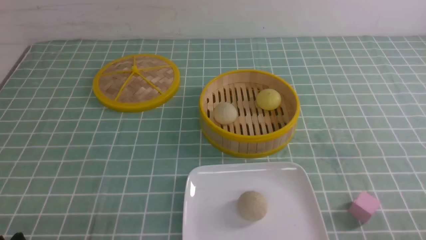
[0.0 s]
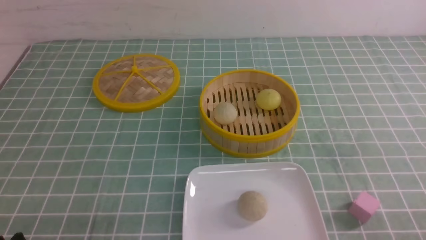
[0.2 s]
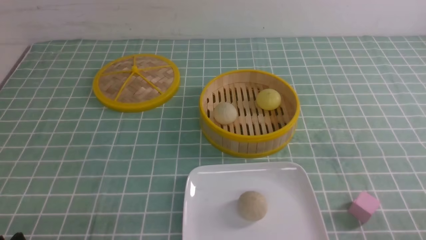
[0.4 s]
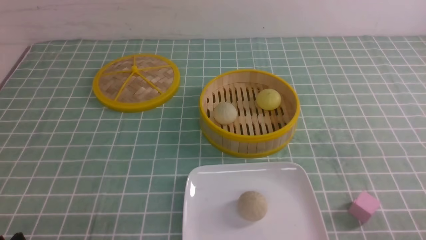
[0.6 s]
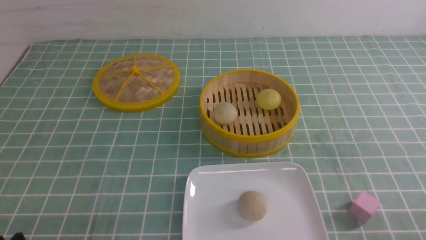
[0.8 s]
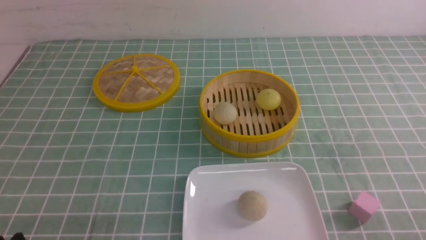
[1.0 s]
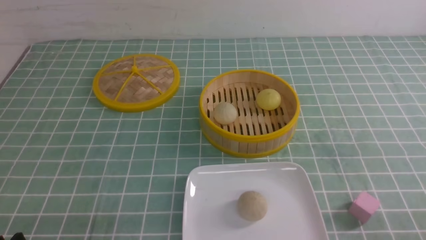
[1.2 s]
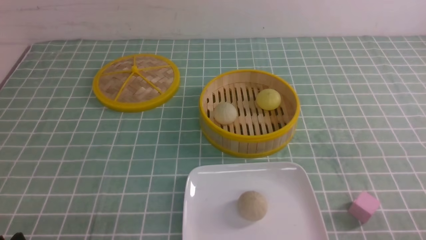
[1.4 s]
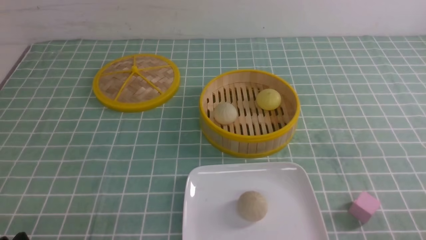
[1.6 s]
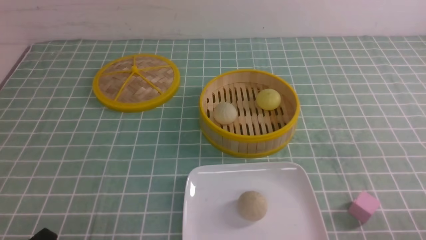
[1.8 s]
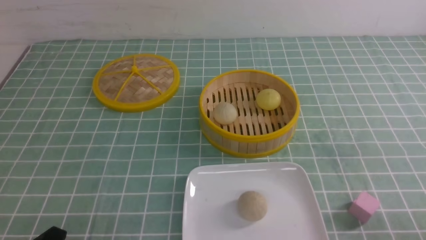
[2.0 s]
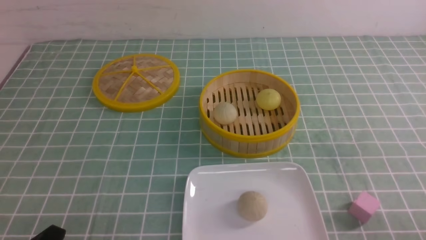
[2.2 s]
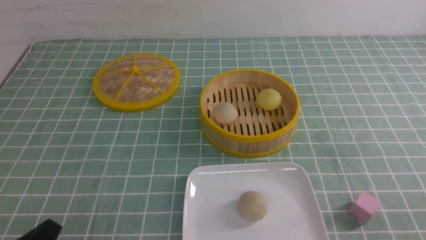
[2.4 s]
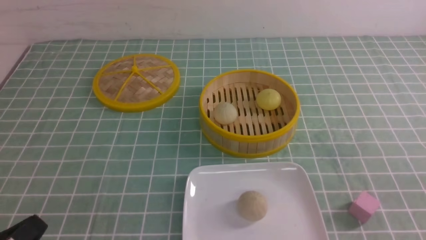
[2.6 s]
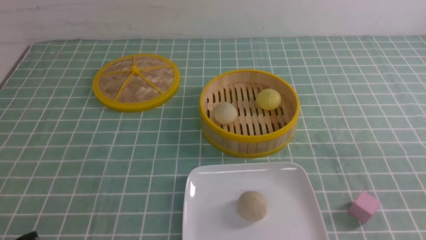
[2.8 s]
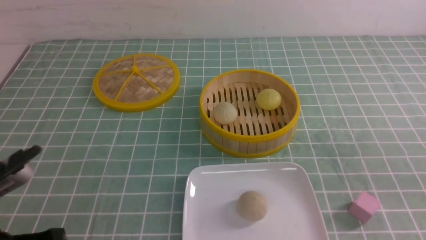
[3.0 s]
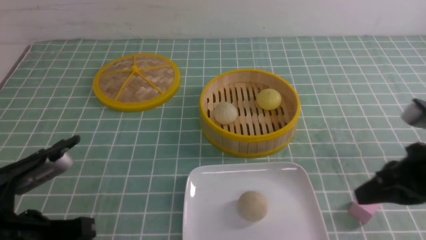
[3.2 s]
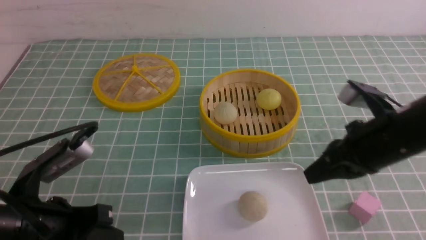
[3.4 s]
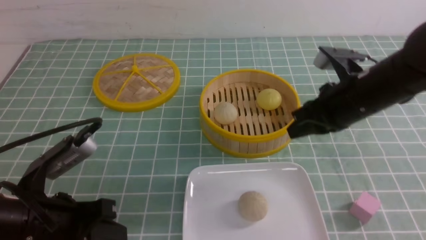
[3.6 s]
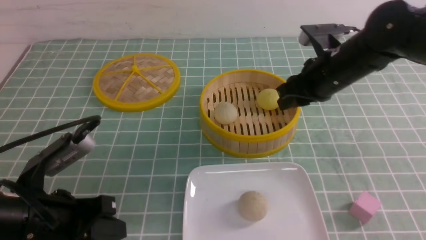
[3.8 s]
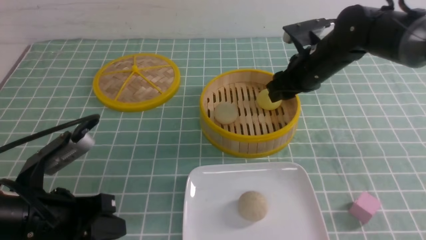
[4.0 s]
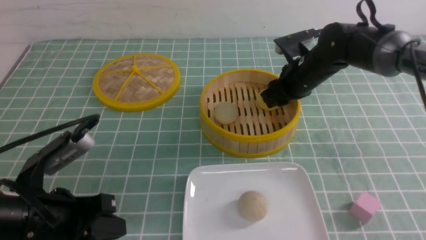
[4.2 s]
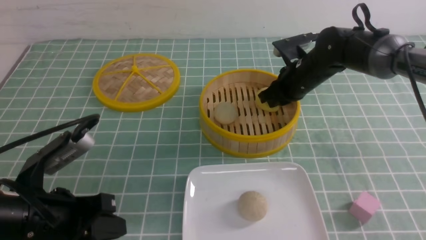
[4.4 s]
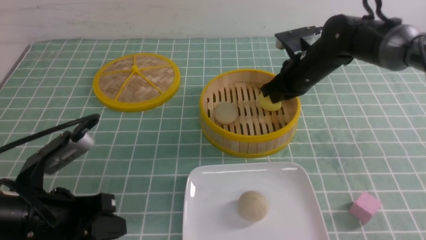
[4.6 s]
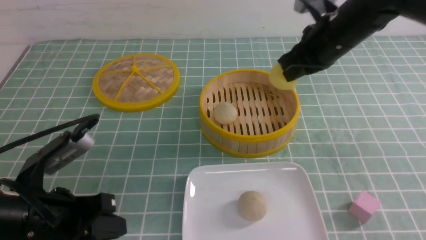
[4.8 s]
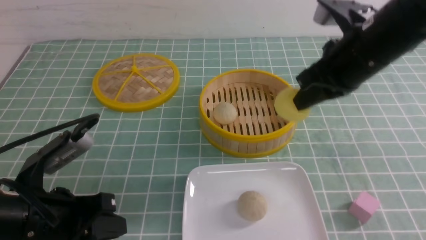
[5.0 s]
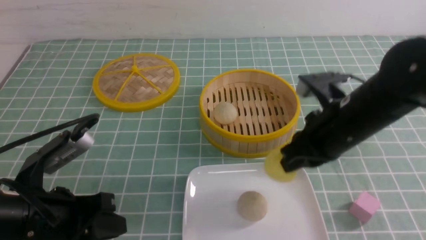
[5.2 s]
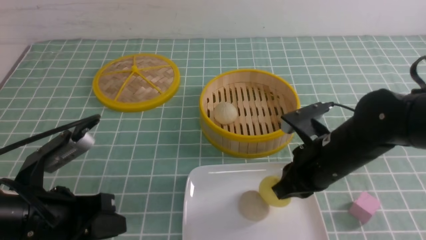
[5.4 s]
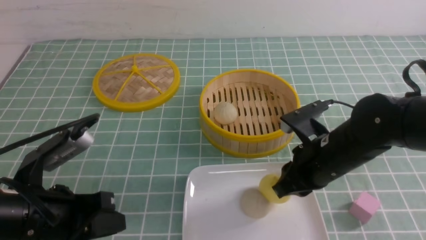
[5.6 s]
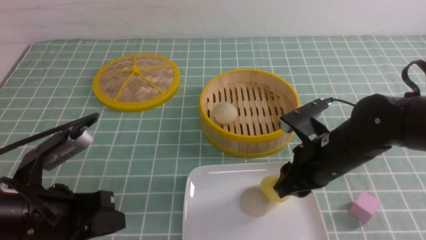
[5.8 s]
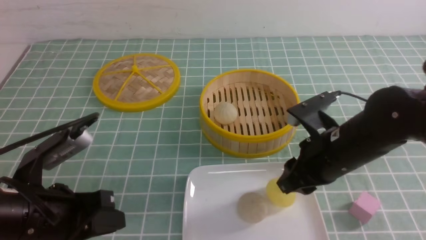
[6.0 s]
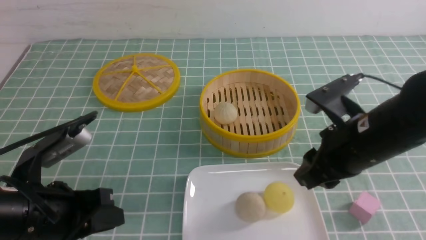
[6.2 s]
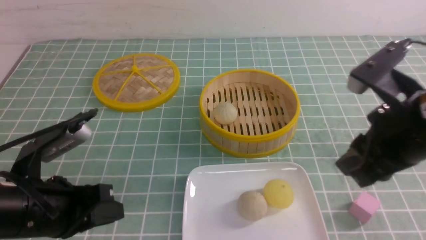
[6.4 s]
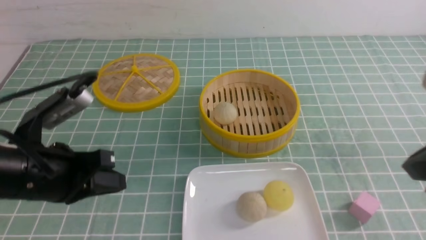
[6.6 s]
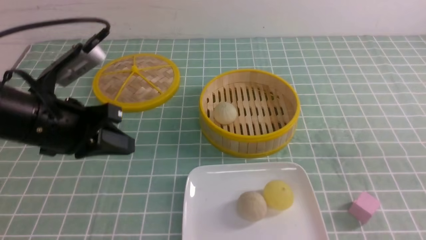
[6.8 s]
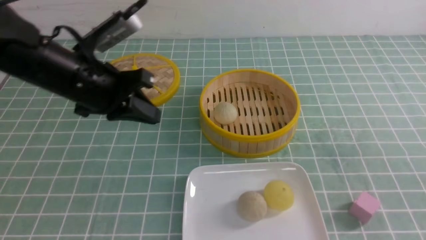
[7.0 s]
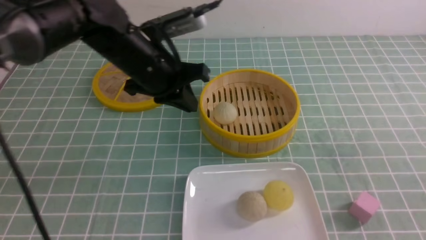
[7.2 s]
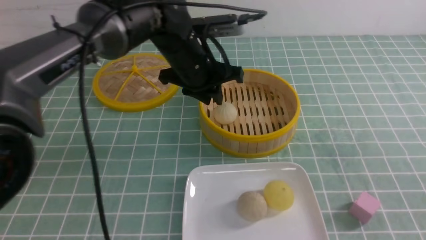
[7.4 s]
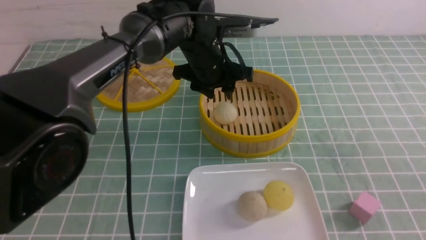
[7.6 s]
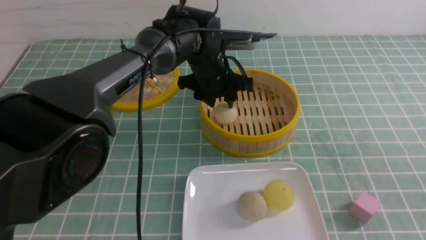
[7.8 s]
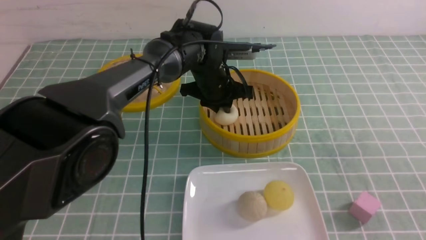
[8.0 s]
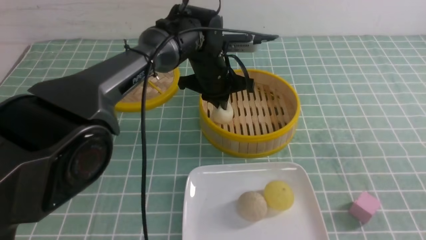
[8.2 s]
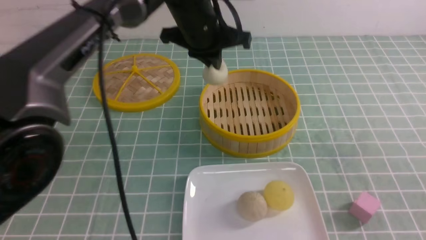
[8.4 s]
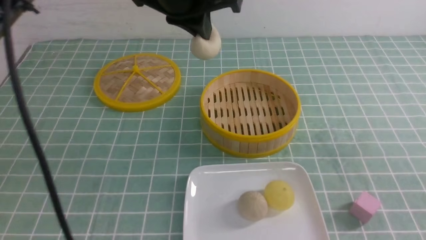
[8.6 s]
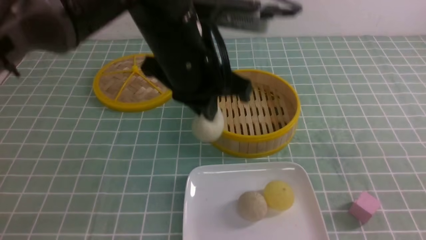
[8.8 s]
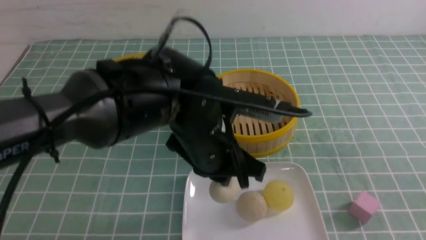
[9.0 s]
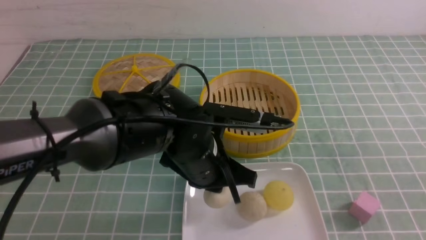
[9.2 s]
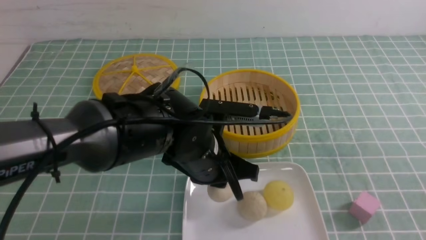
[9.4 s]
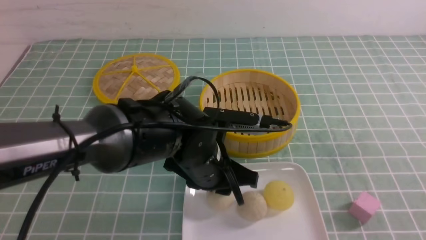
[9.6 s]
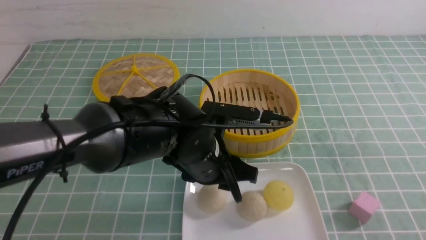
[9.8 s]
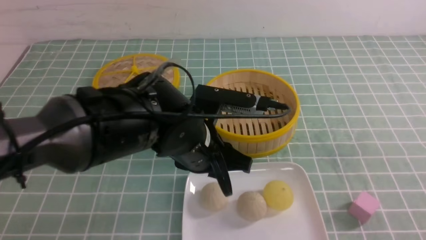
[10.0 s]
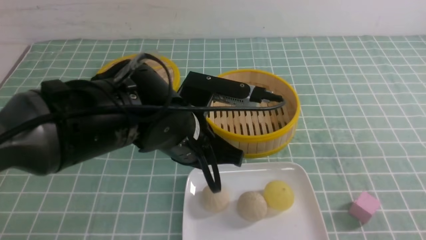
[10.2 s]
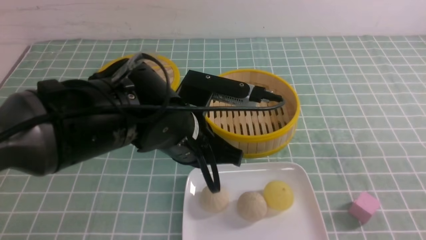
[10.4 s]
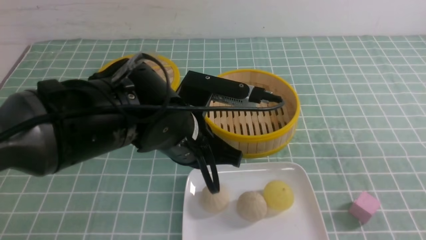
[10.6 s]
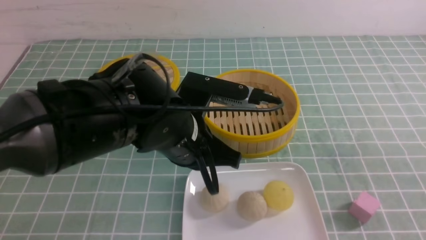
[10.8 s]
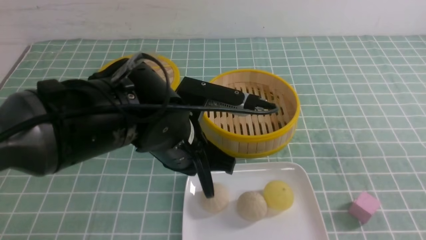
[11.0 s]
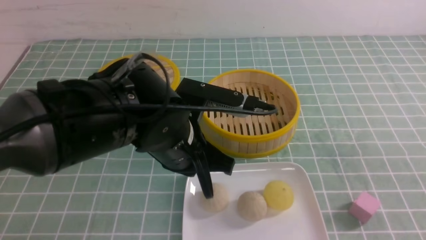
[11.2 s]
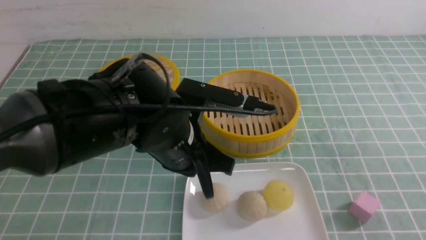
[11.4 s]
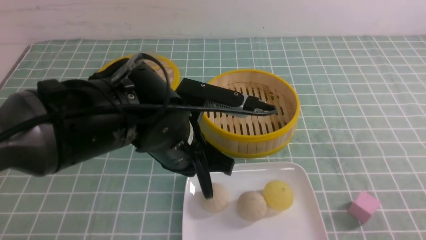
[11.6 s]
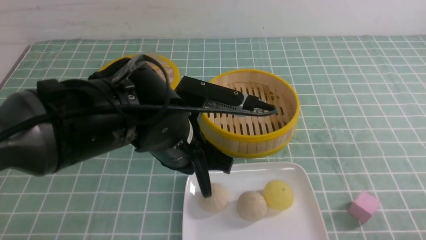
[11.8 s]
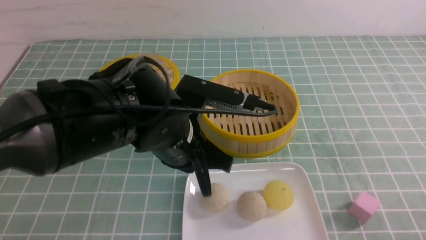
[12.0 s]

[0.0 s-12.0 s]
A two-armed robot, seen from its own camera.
Step, 0.0 to 4.6 s: use the right arm to grab the steamed stuffed bun that is closest to it.
Step, 4.8 to 5.6 s: use the right arm to put the steamed stuffed bun into the plate.
Step, 5.8 to 8.0 s: use the left arm to grab the steamed stuffed bun that is closest to it.
Step, 8.2 to 9.6 s: use the left arm to put the steamed stuffed bun into the plate.
1.6 to 3.0 s: The left gripper travels upward by roughly 10 cm, and closes.
3.0 to 4.4 s: The right gripper travels forward and to the left by some 30 cm, and opens its fingers. The left gripper heads forward, covering roughly 5 cm.
4.4 to 6.0 s: The right gripper moves backward, approximately 20 cm, and opens.
6.0 to 7.6 s: The left gripper goes about 35 cm forward and to the right, and opens. The right gripper travels backward, to the right and upward by roughly 25 cm, and closes.
7.6 to 9.0 s: The left gripper moves backward, approximately 15 cm, and closes.
9.0 to 10.4 s: The left gripper opens, then closes once more.
10.4 to 12.0 s: The right gripper travels downward by about 10 cm.

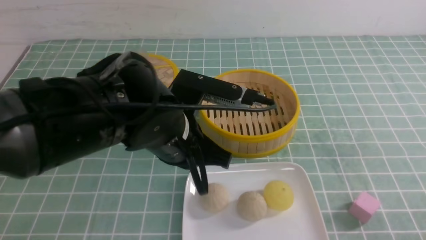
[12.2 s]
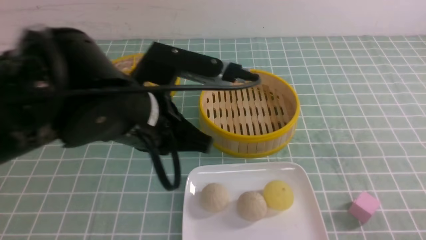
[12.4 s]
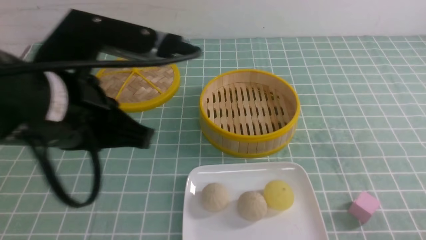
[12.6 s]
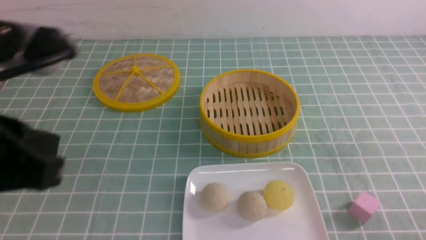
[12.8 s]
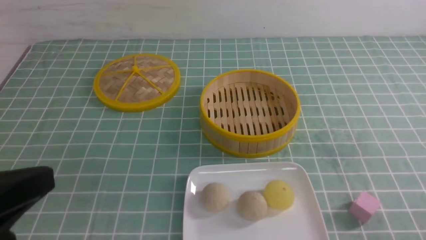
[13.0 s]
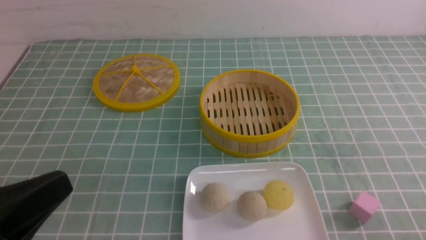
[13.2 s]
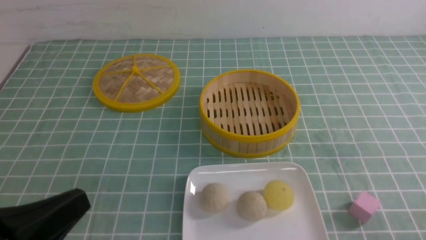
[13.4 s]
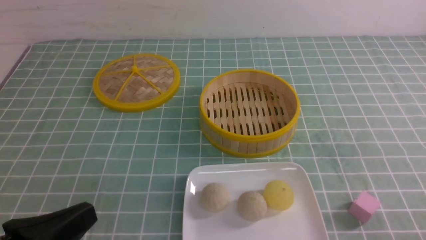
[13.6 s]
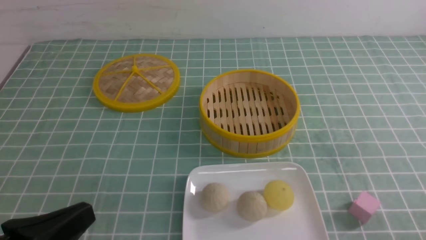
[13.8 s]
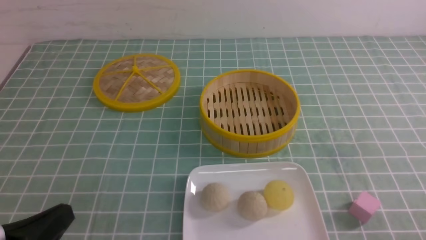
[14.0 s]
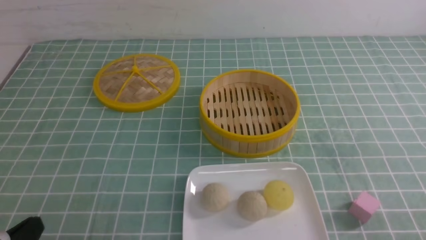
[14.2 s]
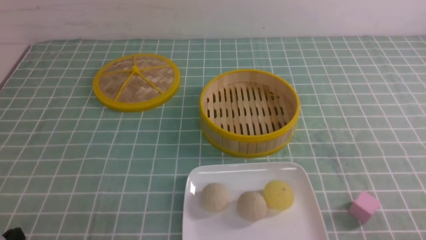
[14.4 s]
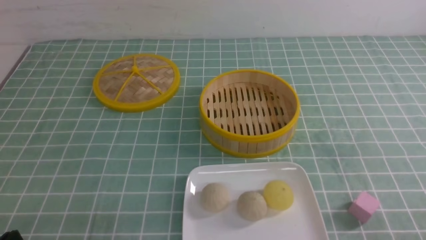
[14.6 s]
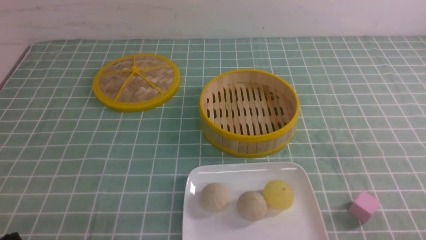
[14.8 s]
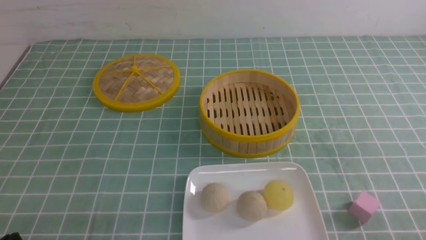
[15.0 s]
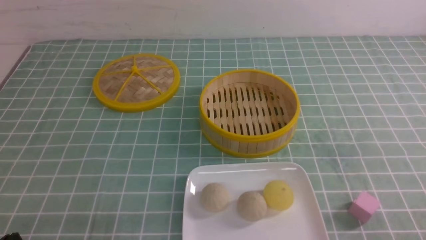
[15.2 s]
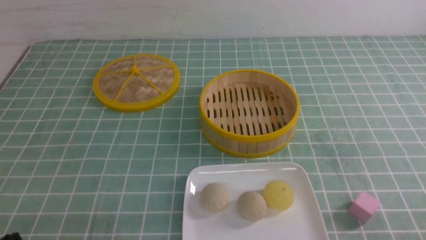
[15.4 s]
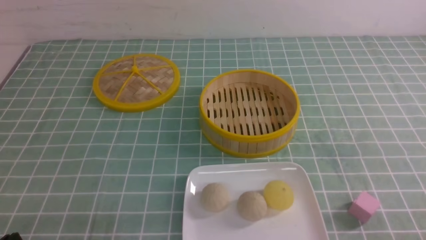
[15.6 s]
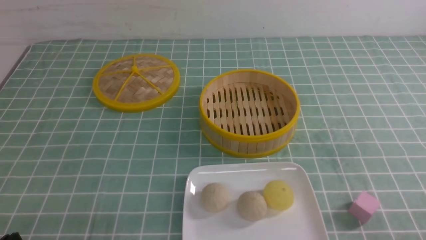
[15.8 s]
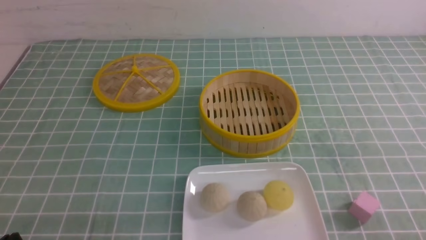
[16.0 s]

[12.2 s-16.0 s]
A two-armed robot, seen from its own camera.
12.2 to 13.4 s: The left gripper heads backward and to the left, covering roughly 25 cm.
13.4 to 14.8 s: The left gripper heads downward, covering some 10 cm.
14.8 to 16.0 s: Both grippers stay put.

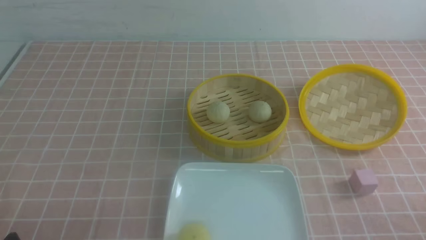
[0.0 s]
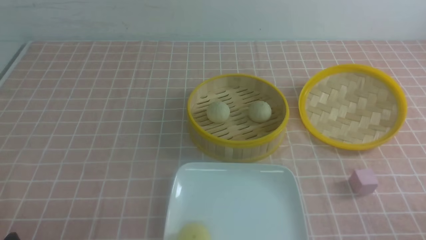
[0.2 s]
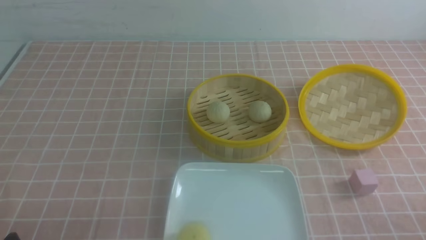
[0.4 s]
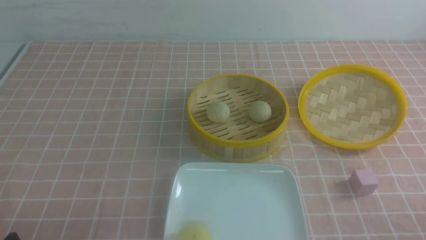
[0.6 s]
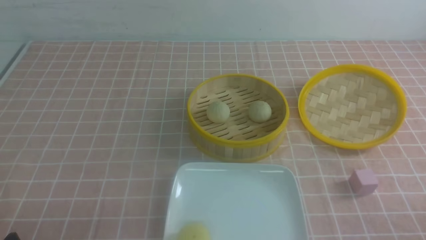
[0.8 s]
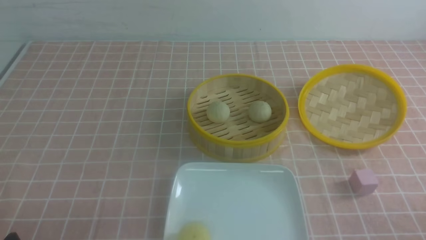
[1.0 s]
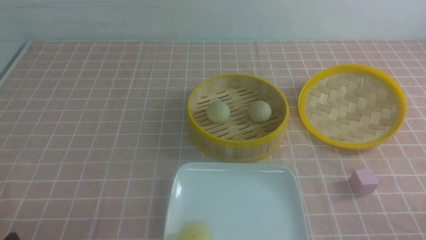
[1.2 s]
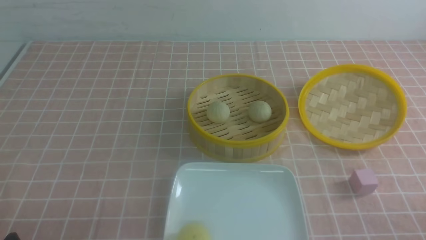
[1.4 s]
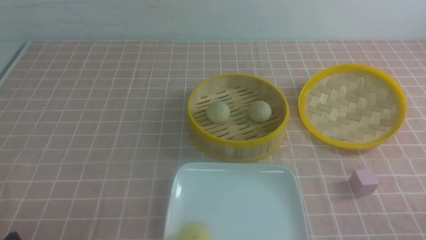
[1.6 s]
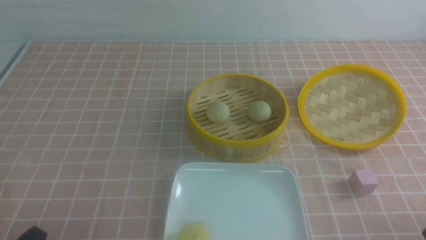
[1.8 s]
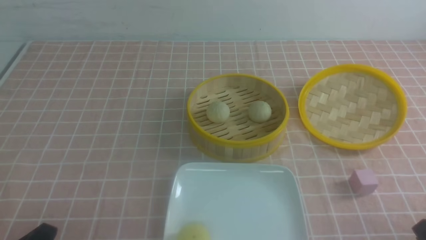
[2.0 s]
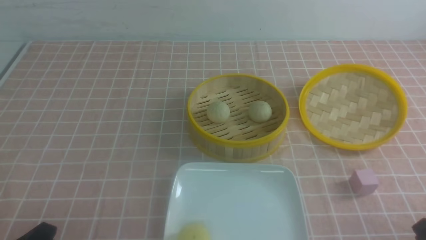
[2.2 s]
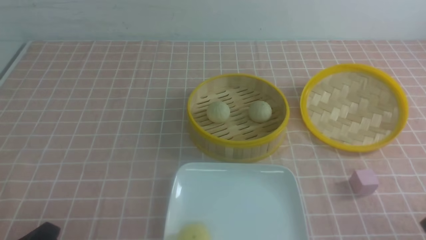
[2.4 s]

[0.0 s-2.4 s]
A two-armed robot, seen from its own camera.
0.0 to 1.2 s: Both grippers stay about where they are.
